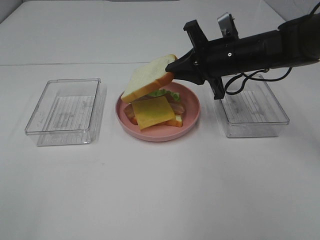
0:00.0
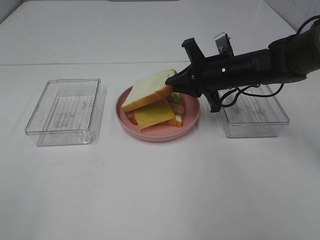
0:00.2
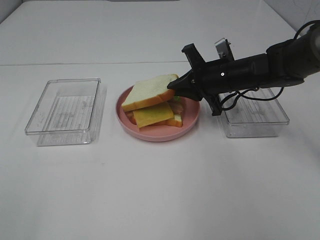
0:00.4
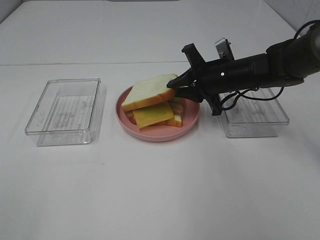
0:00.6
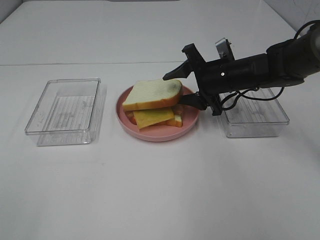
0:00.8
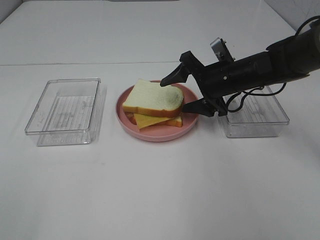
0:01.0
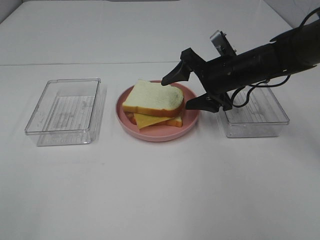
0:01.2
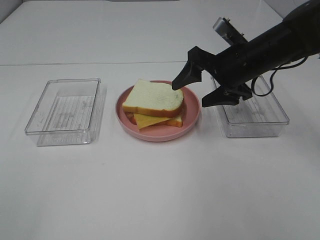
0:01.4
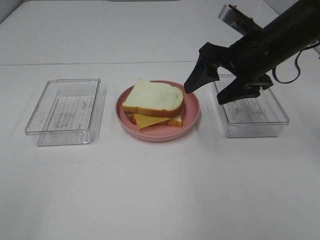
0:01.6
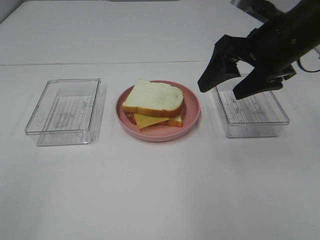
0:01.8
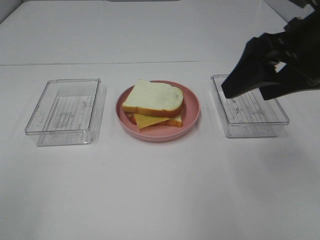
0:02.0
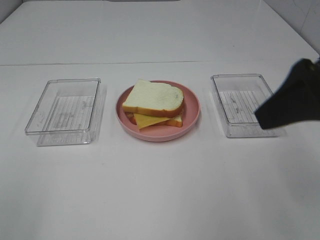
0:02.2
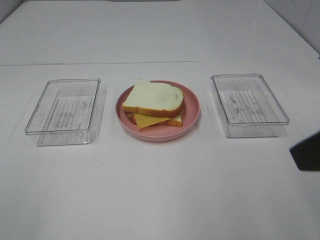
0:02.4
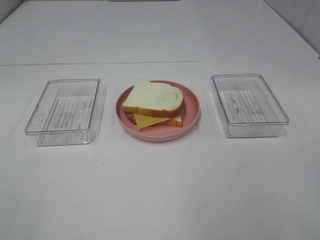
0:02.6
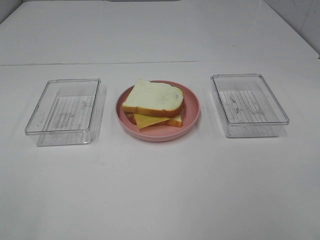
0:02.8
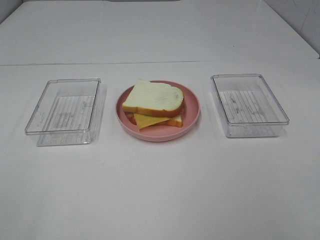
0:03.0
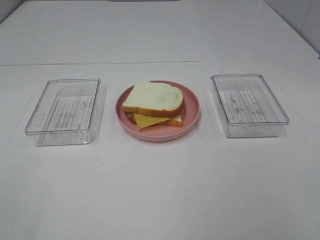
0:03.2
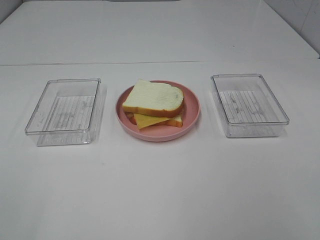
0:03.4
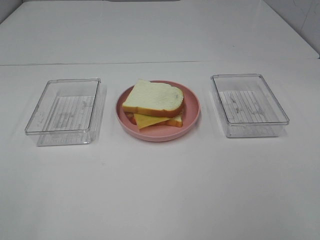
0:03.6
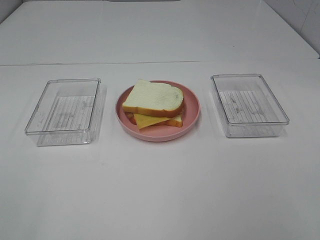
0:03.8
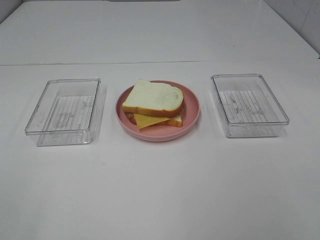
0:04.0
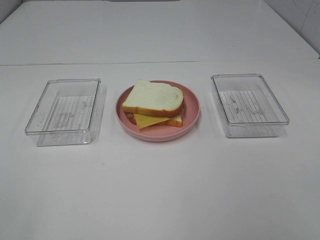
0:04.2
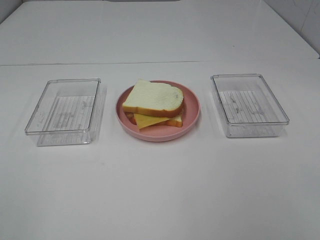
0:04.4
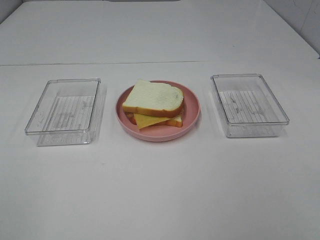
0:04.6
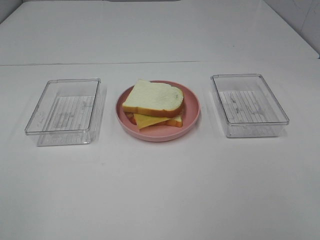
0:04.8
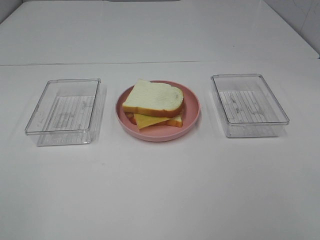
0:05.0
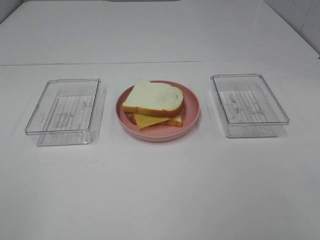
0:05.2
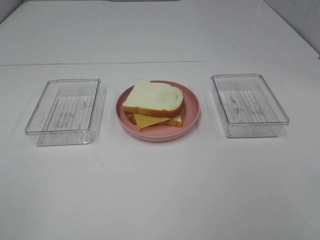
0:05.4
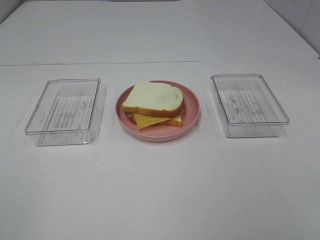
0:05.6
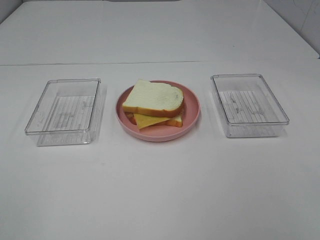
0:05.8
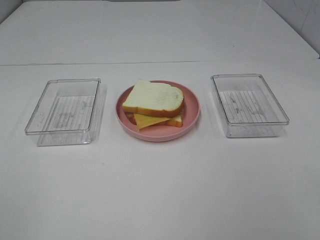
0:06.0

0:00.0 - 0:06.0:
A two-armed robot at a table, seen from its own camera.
Task of the whole recording: Make sandwiches.
0:00.0 - 0:01.6: The right gripper is displaced upward and backward by approximately 10 cm, and opens.
0:01.6 - 0:03.0: The right gripper moves backward, some 30 cm.

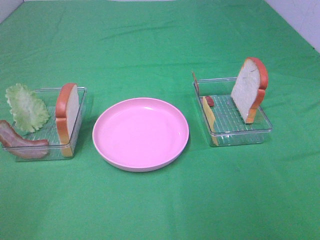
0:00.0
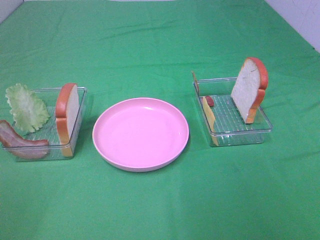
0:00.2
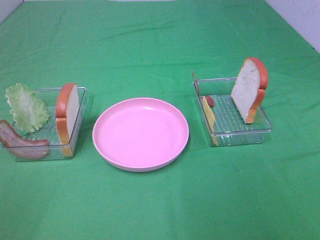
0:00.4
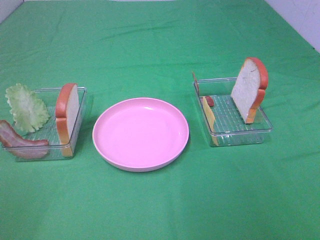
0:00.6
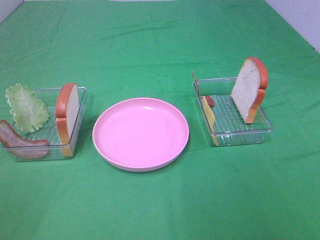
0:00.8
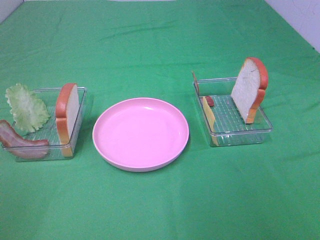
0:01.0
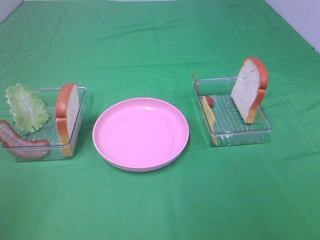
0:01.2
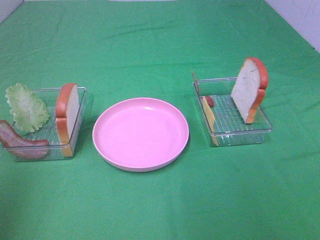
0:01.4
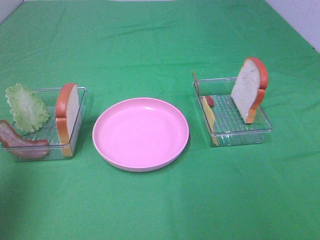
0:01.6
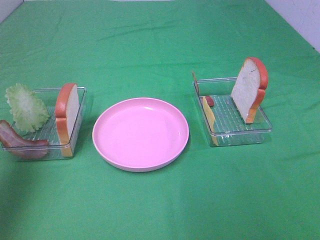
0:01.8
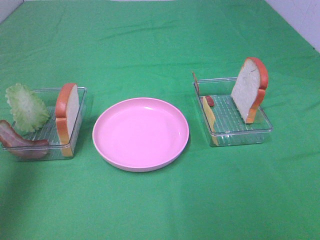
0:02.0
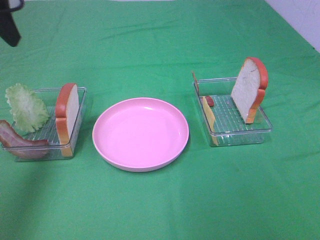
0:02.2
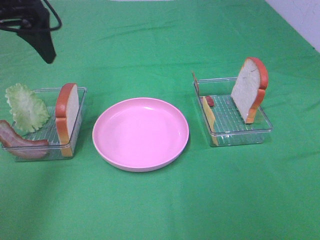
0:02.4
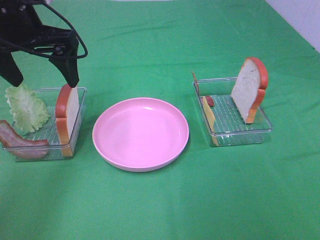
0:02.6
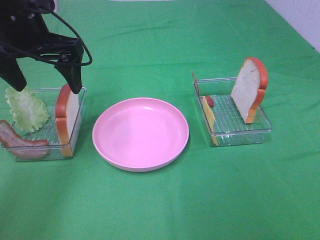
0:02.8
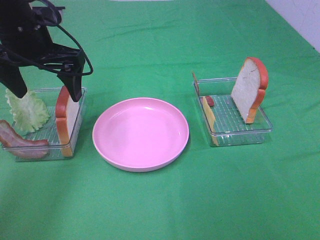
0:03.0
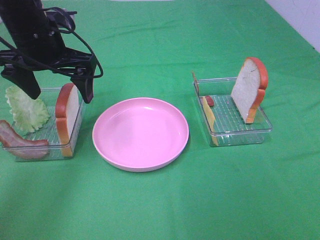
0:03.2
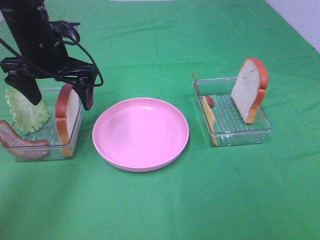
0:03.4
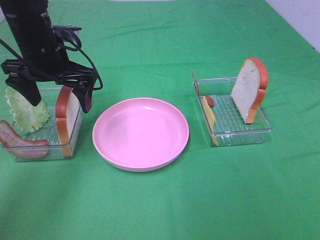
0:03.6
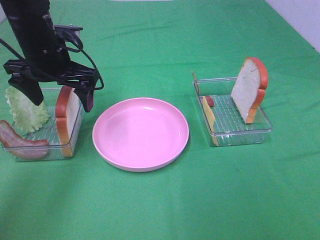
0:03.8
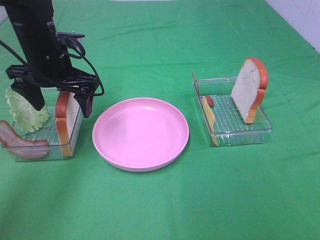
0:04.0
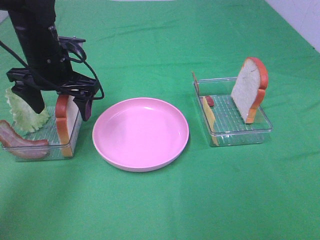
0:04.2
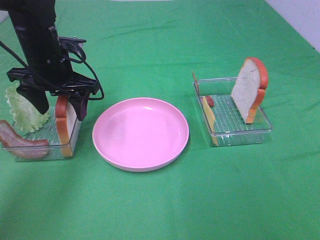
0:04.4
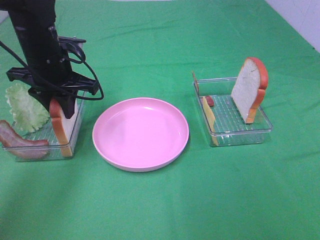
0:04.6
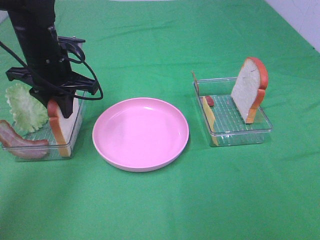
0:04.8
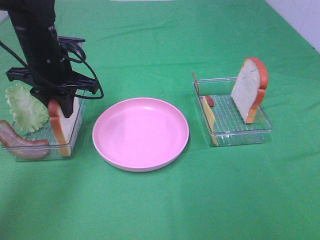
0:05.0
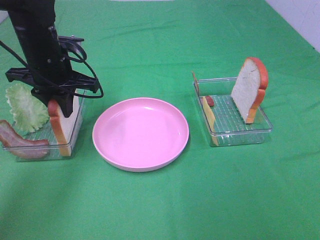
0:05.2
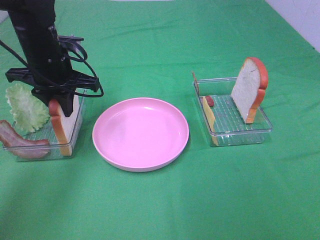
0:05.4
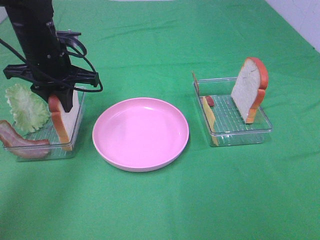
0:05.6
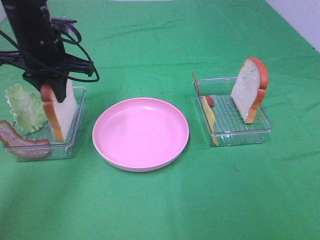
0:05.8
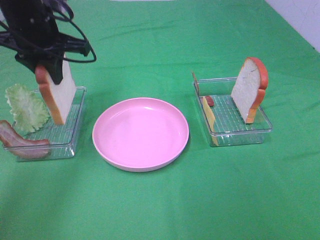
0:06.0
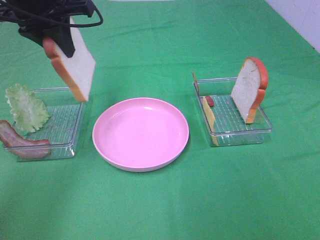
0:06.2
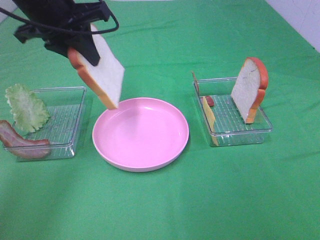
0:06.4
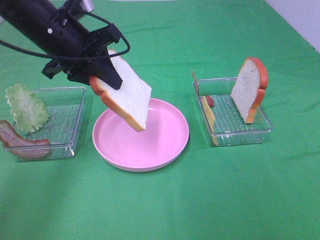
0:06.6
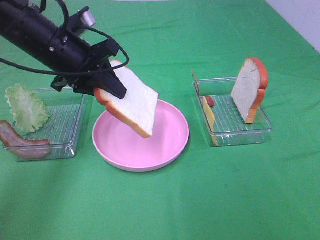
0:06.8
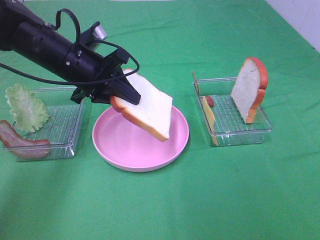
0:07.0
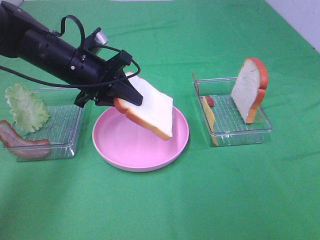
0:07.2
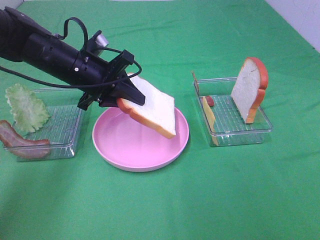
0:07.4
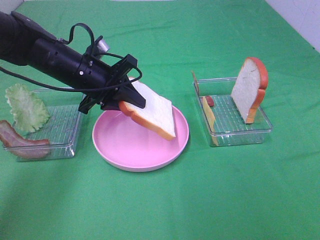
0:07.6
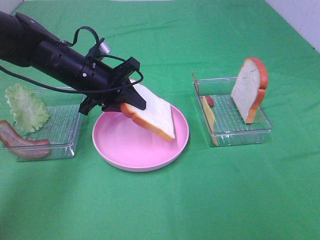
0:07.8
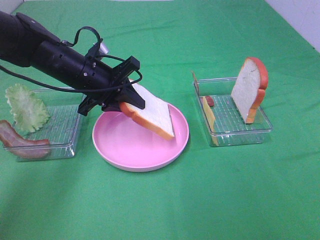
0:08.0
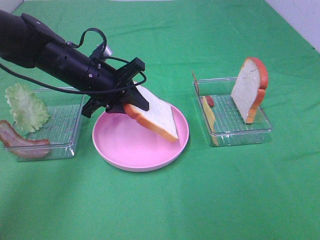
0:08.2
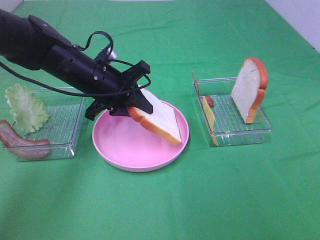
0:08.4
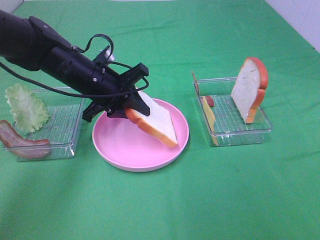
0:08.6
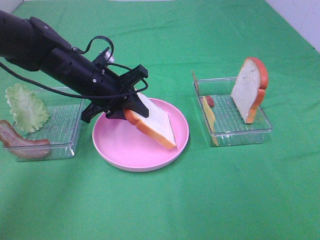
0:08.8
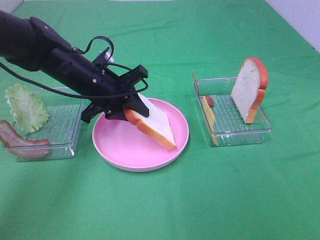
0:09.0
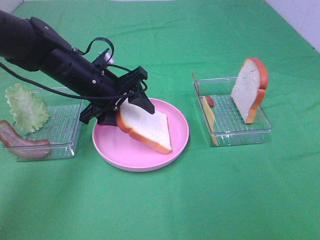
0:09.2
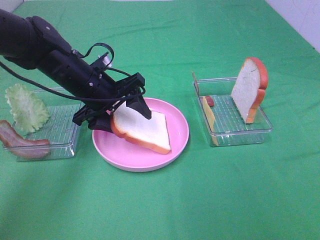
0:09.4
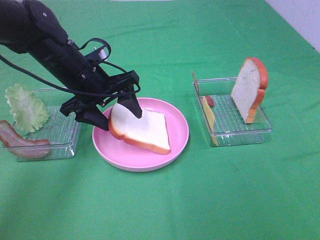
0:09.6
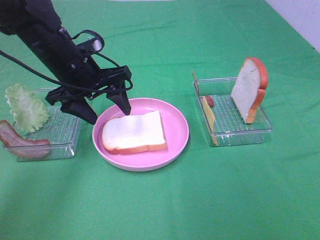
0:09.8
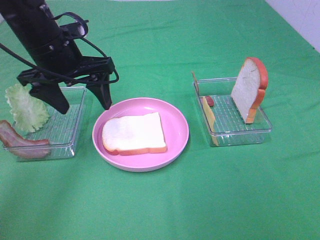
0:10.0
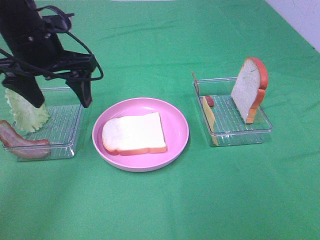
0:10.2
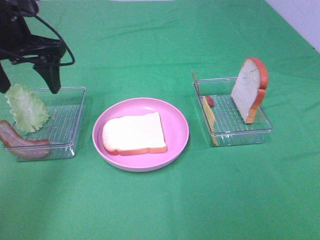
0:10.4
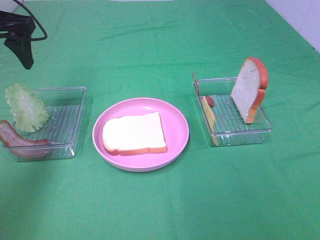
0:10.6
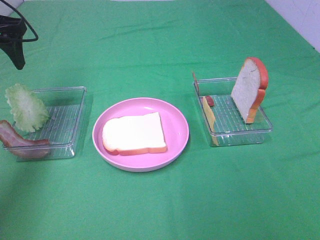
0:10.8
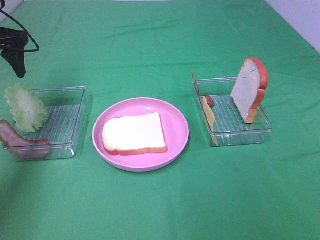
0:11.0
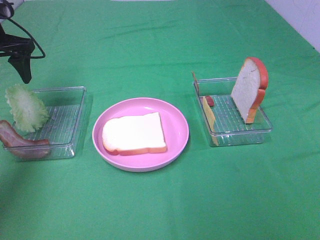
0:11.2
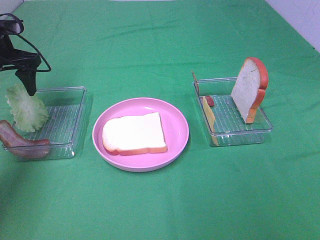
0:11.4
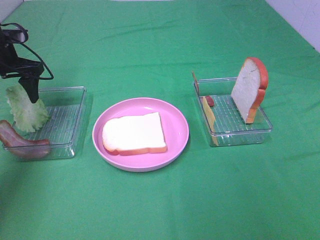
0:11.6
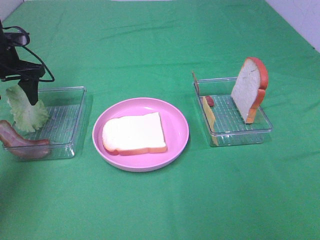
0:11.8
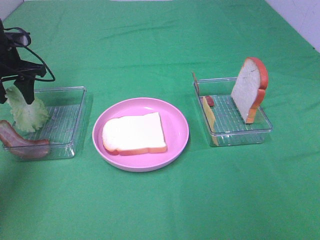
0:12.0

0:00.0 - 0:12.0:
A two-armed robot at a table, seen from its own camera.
Task of the whole recording: Make sandwiches.
Step, 0:00.0 - 0:05.4: Left hand:grab the bread slice.
Step, 0:05.6 - 0:09.8: Left hand:place the bread slice on the plate.
0:00.0 - 0:01.6: The left gripper heads forward and upward, covering roughly 20 cm.
0:01.6 - 0:03.0: The left gripper goes approximately 25 cm forward, to the right and downward.
0:03.0 - 0:04.4: The left gripper moves downward, roughly 5 cm.
0:04.4 - 0:06.0: The left gripper heads upward, covering roughly 10 cm, and closes its fingers.
0:06.0 - 0:07.6: The left gripper shifts some 10 cm downward.
0:07.6 - 0:09.0: The grippers move only a little.
0:09.0 - 0:10.4: The left gripper goes approximately 15 cm upward and to the left, and opens.
0:10.4 - 0:12.0: The left gripper heads downward, forward and to the left, covering roughly 15 cm.

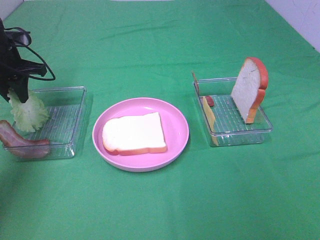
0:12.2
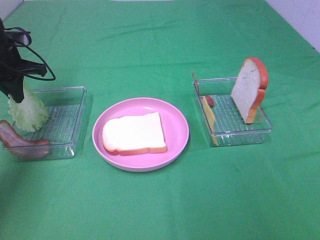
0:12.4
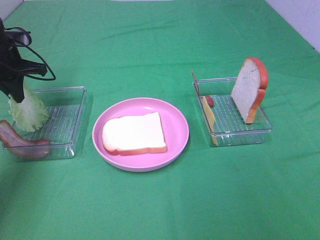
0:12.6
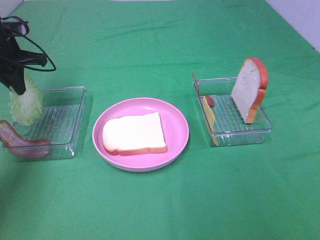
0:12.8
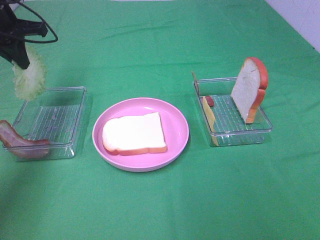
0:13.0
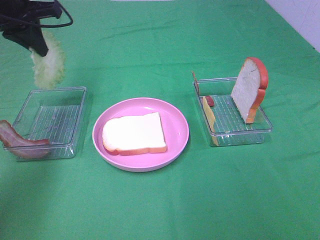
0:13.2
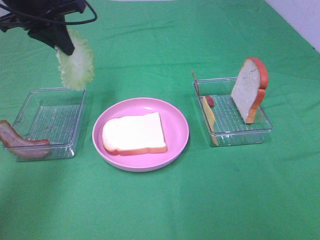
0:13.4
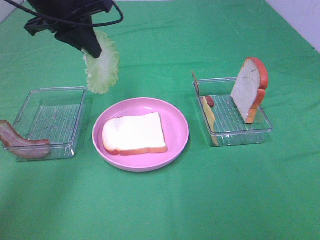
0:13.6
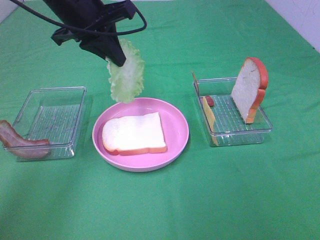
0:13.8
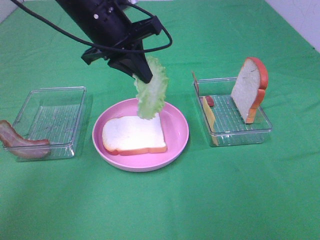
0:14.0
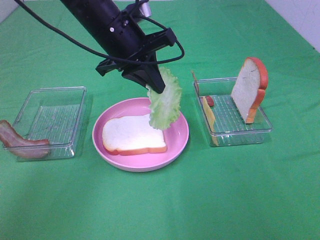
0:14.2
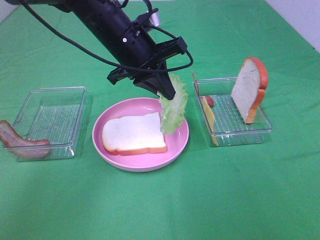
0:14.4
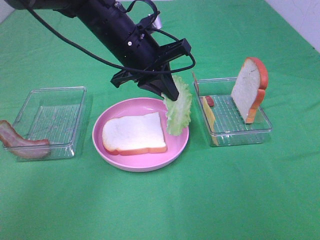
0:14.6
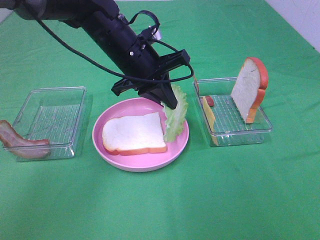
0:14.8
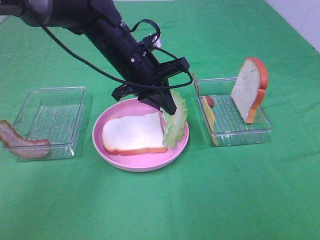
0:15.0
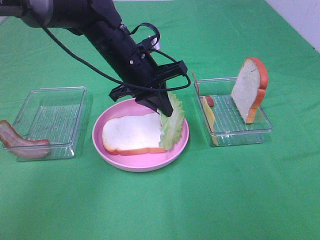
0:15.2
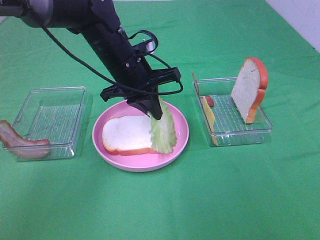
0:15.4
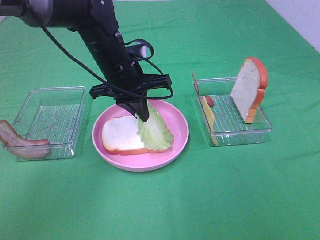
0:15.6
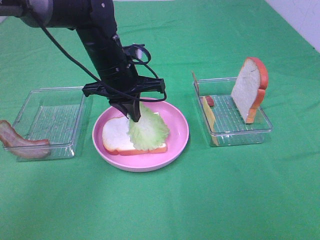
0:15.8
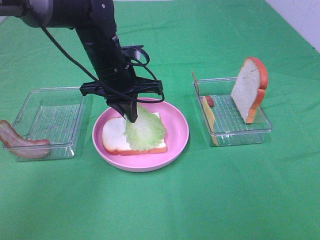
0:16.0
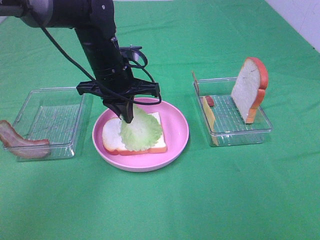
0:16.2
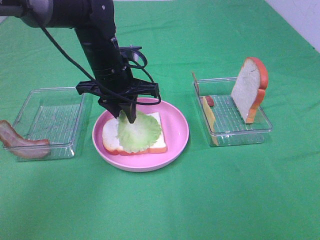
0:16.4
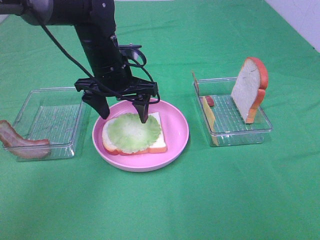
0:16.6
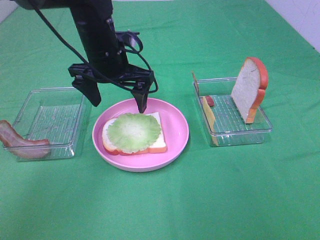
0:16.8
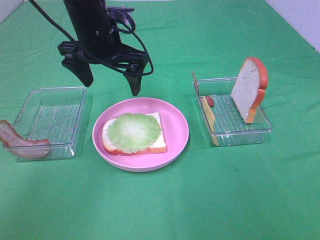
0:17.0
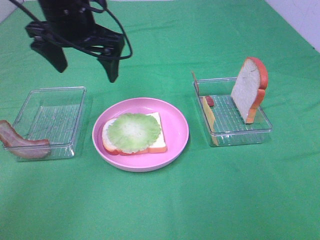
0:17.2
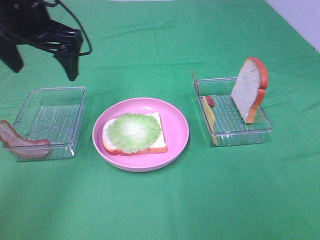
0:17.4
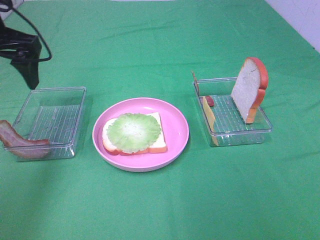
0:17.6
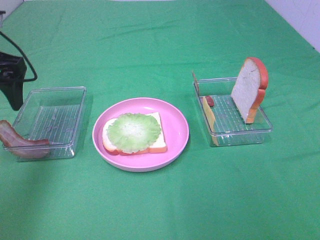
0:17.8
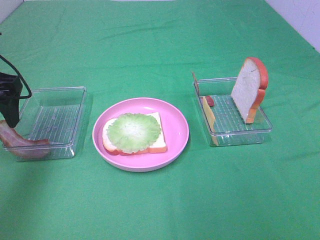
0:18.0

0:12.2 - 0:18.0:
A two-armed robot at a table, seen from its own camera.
Task of the whole recording: Make sandwiches.
Step, 0:12.6 - 0:16.6: Left hand:place the lettuce slice on the bread slice.
0:12.2 - 0:13.6: The left gripper goes roughly 20 cm to the right and upward.
0:13.6 - 0:15.0: The left gripper shifts some 15 cm downward and to the right.
0:15.0 - 0:16.6: The left gripper opens up.
0:16.6 - 0:18.0: The left gripper goes approximately 20 cm to the left.
